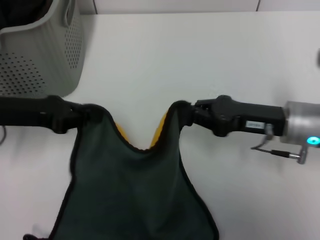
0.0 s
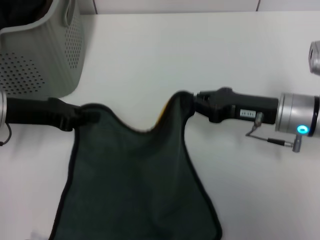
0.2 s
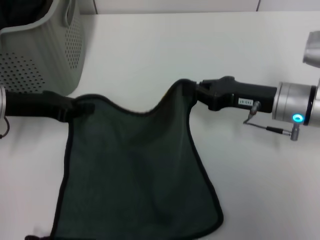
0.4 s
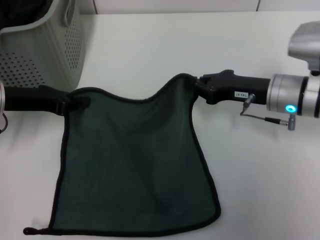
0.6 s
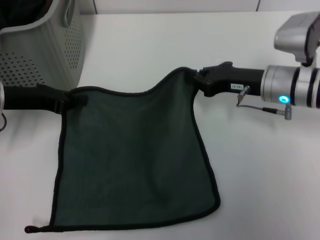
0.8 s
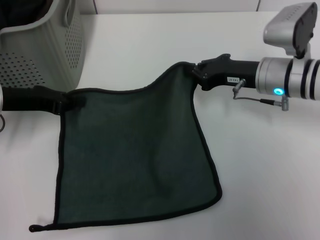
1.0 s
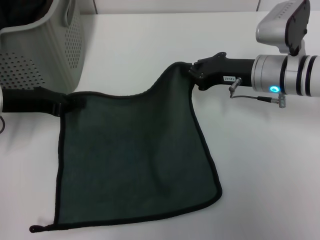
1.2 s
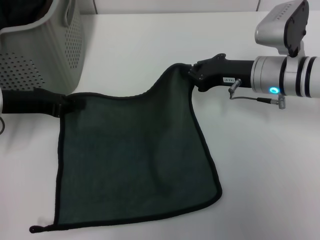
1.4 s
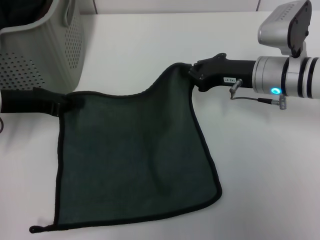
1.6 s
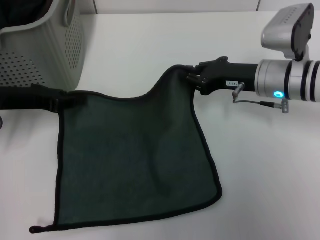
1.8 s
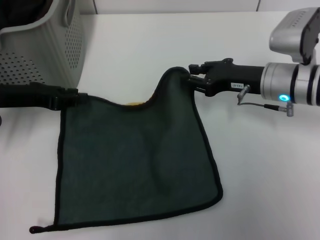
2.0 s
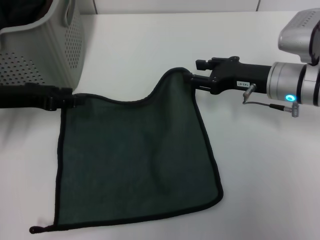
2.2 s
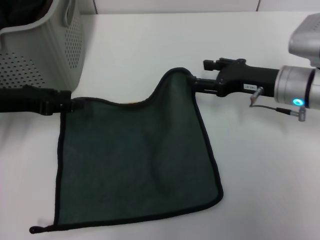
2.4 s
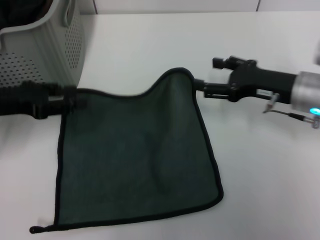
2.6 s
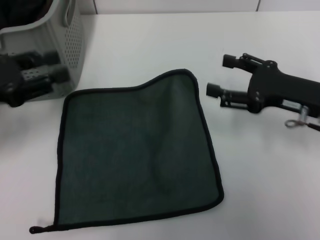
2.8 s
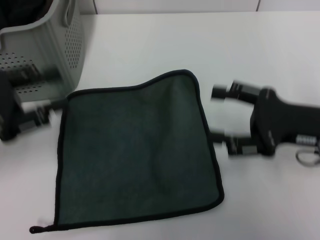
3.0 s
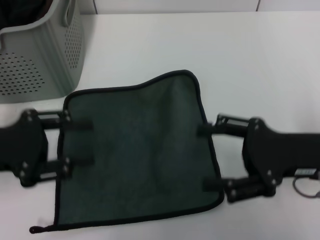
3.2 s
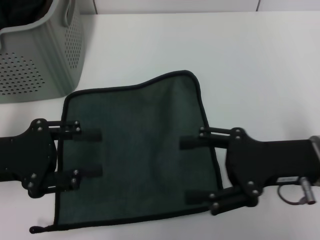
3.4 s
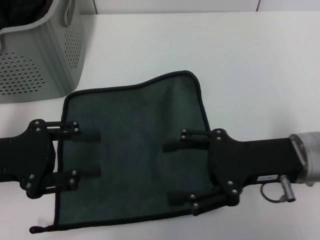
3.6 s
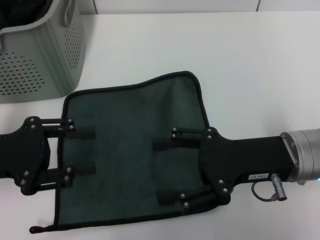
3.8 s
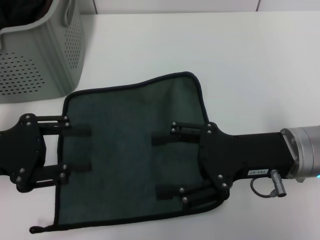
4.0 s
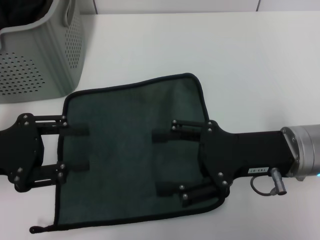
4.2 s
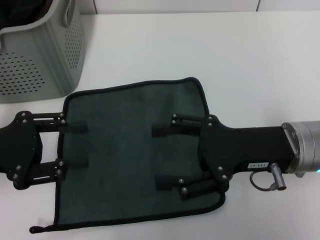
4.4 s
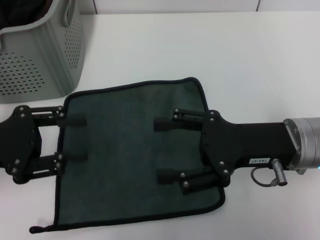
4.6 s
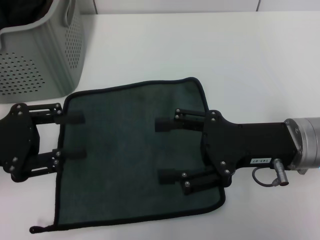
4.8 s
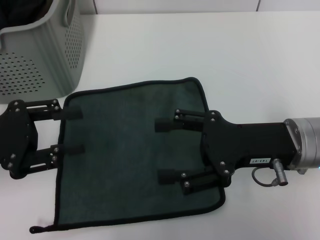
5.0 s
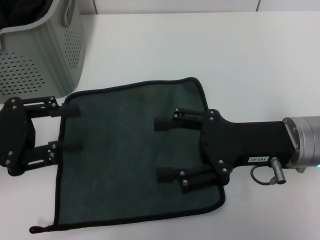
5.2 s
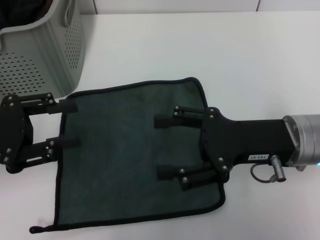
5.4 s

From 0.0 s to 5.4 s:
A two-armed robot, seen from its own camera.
Task of the whole recording: pick up the towel from the storage box and lay it flat on the table.
Step, from 0.0 s to 2.6 s: Spread the towel flat with the right gripper.
From 0.0 s to 1.4 s: The right gripper is displaced forward by about 10 cm.
From 1.4 s to 2.8 s: The right gripper goes some 10 cm backward and to the right, and opens its fingers, while the left gripper is displaced backward by approximately 5 cm, and opens up.
From 2.8 s to 4.0 s: The right gripper shifts roughly 5 cm to the left. The left gripper moves about 5 cm.
From 4.0 s to 5.4 s: The grippers move only a little.

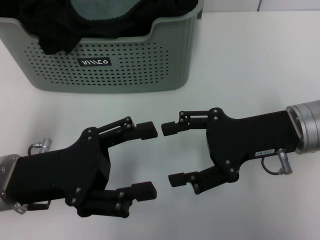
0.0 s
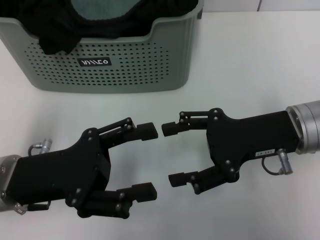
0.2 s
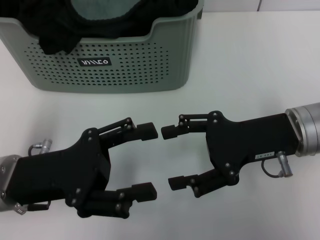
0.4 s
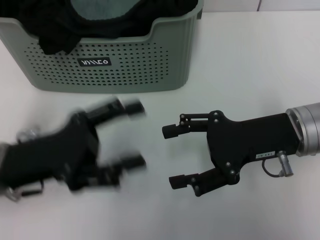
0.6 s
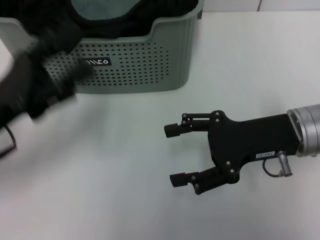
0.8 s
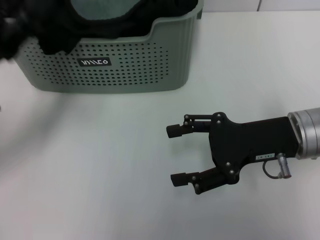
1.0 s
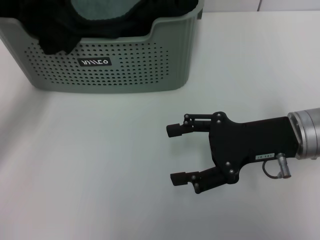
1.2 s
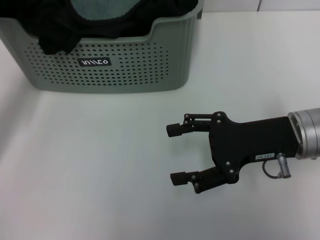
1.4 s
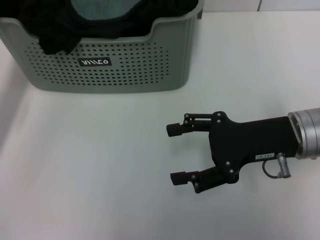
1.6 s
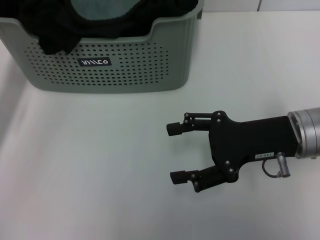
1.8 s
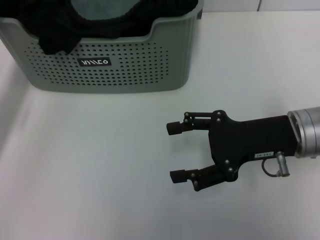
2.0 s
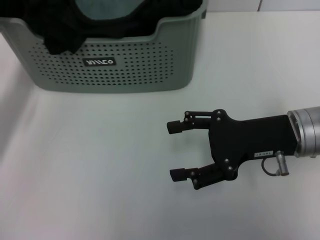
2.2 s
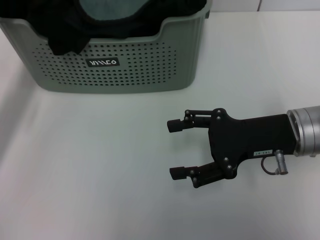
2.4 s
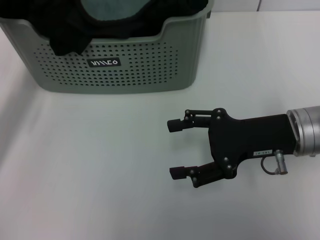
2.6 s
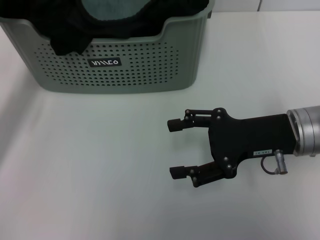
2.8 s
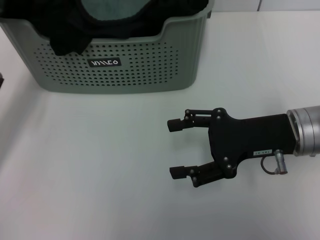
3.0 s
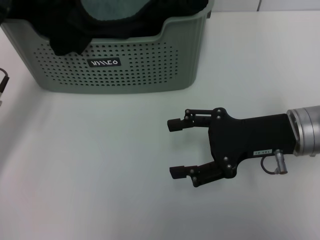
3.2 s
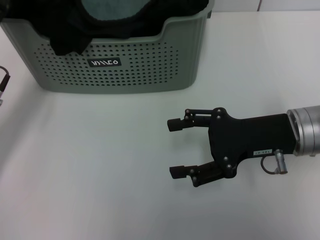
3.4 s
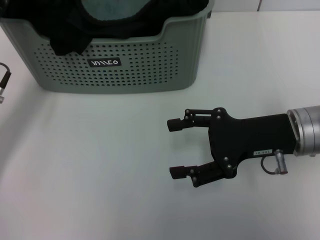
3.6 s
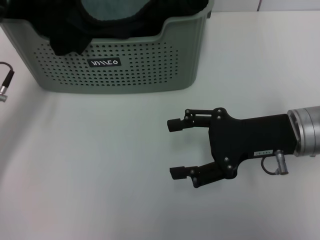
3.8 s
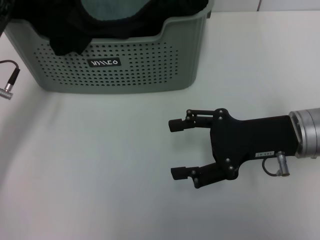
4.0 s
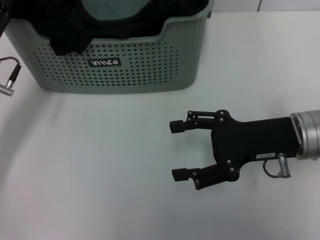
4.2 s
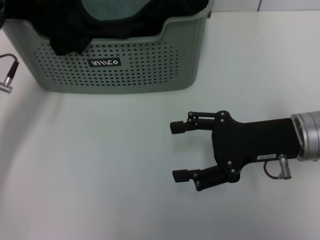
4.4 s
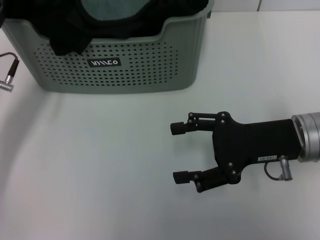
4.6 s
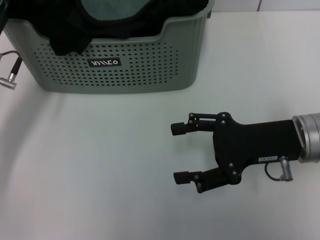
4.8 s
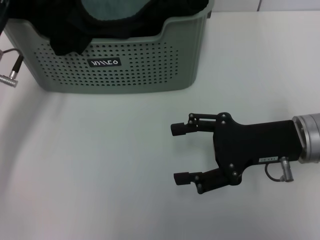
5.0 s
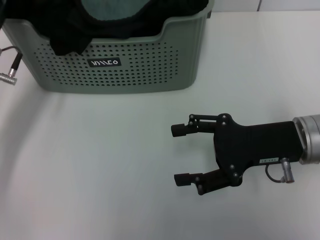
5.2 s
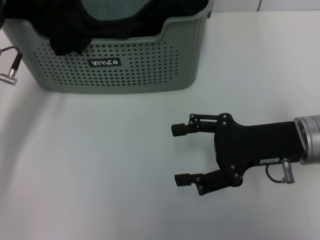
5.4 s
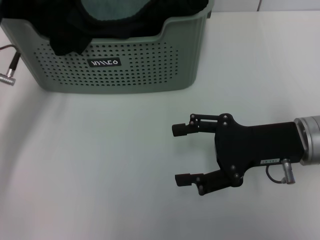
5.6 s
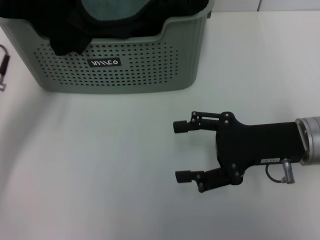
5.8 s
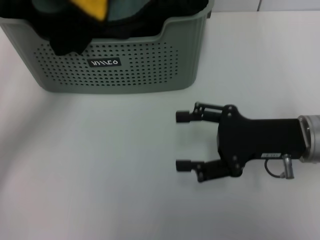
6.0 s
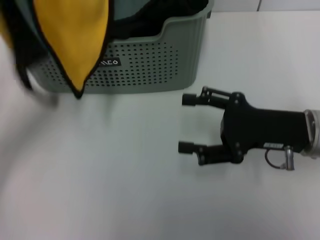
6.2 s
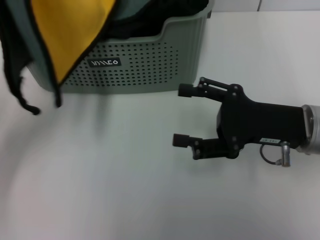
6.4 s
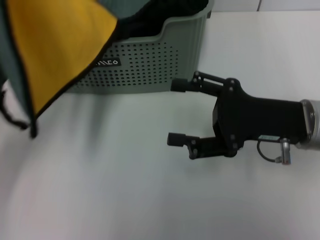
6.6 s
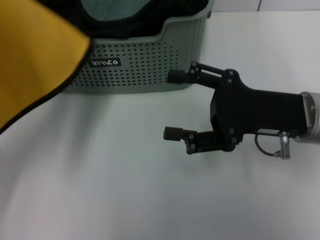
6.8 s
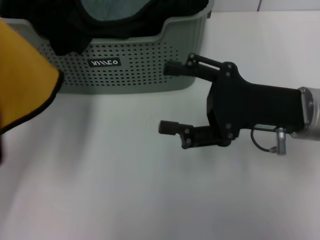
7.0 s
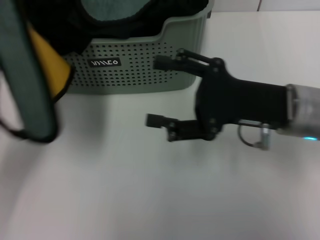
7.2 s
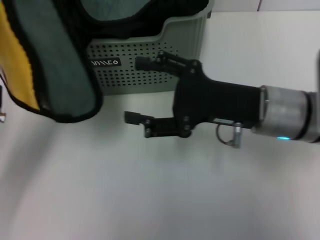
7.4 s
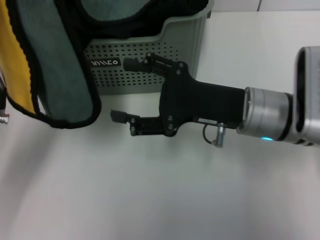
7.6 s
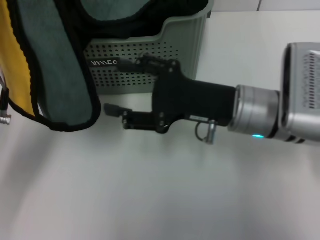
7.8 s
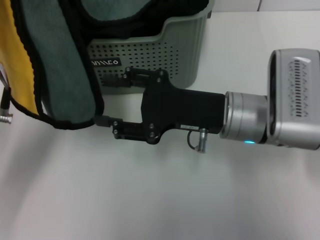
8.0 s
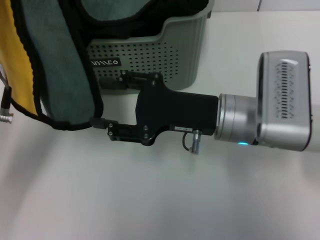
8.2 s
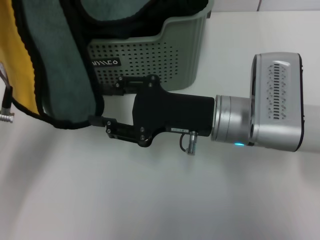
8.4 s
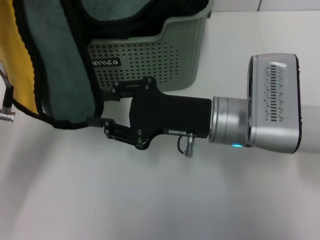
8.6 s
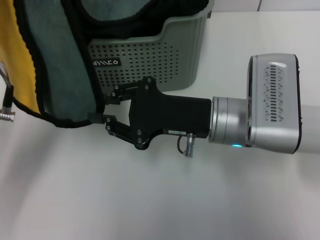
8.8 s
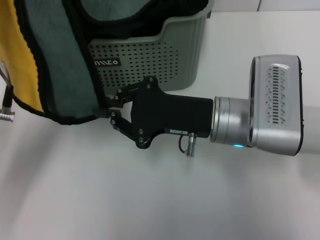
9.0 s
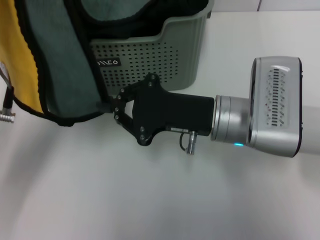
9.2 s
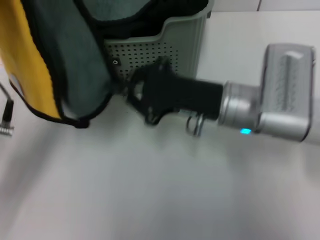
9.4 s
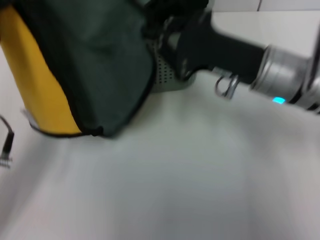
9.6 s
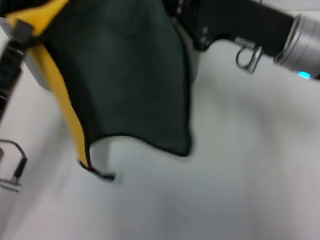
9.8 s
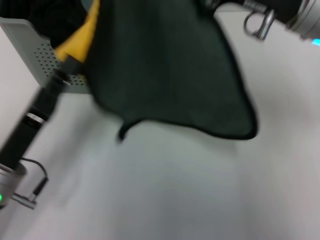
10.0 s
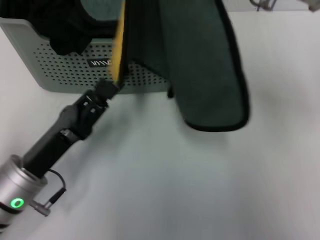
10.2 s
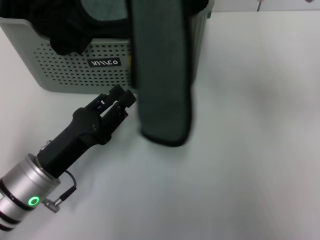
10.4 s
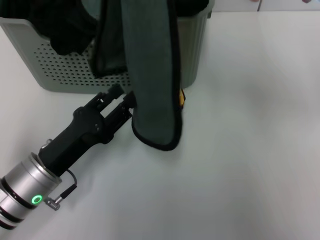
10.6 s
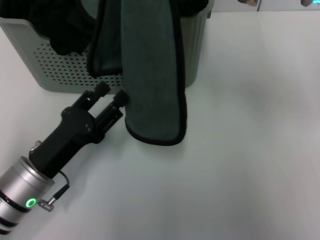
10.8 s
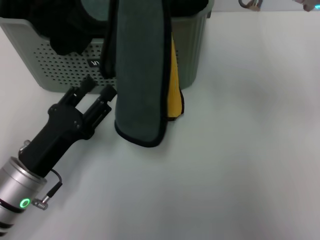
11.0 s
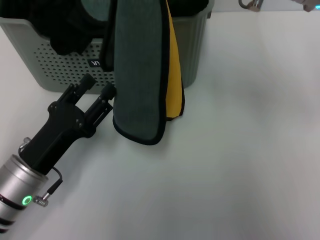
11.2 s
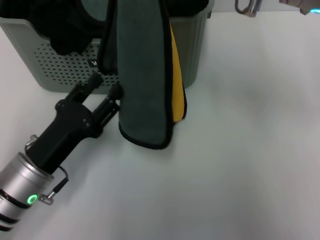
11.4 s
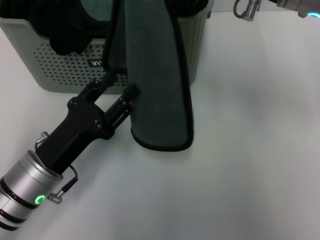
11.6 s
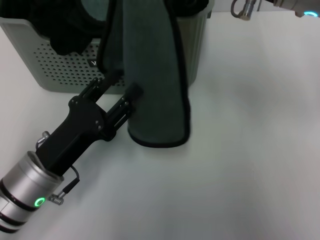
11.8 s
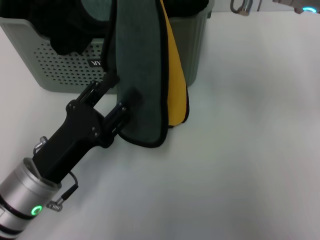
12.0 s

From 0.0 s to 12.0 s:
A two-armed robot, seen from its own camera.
Task of the whole recording: pick up the towel from the storage box and lay it flat on the table.
Step, from 0.0 s to 5.6 s: Pick up a towel with the left gripper.
Step, from 6.0 s to 9.0 s: Spread the towel flat with the left gripper.
From 0.0 s to 1.6 s: The left gripper travels forward and to the left by roughly 15 cm.
From 1.6 s to 3.0 s: The grippers make only small movements.
From 3.0 s to 4.4 s: The grippers make only small movements.
From 4.4 s to 6.0 s: The left gripper moves backward, approximately 5 cm, and closes.
From 6.0 s to 7.6 s: The right gripper moves to the left, roughly 5 cm.
From 7.6 s to 9.0 s: The right gripper closes its fingers.
From 9.0 s to 10.4 s: The right gripper travels upward by about 15 cm, while the left gripper heads downward, covering approximately 10 cm.
From 10.4 s to 12.0 s: The left gripper opens up.

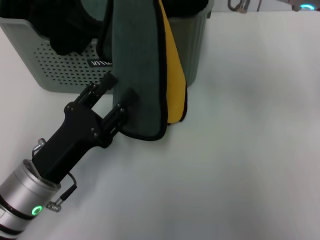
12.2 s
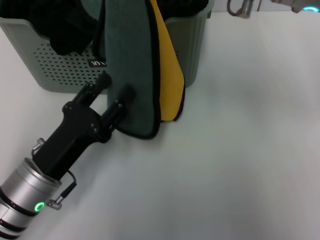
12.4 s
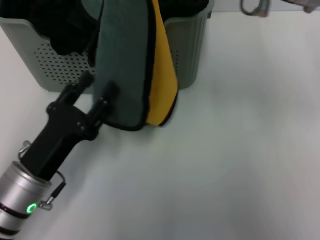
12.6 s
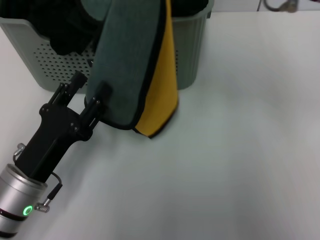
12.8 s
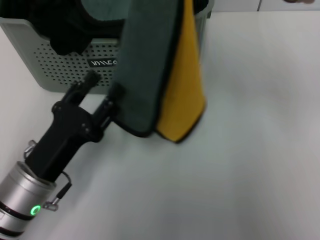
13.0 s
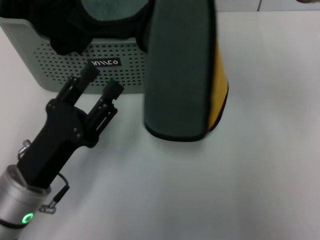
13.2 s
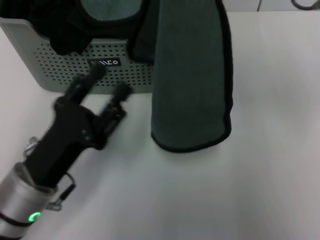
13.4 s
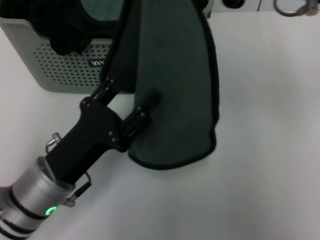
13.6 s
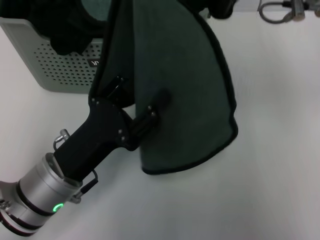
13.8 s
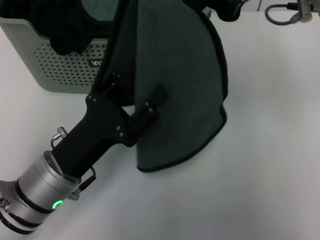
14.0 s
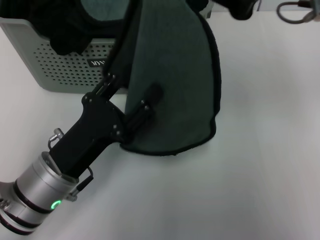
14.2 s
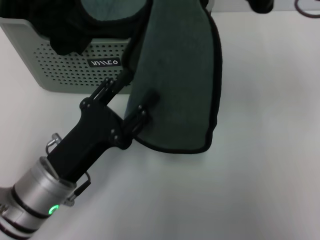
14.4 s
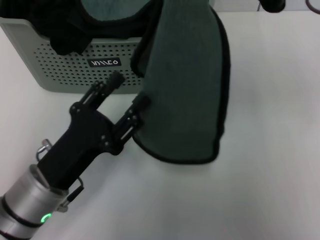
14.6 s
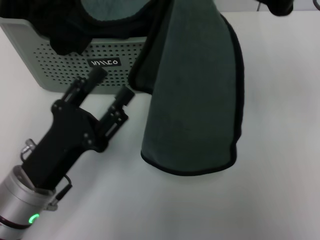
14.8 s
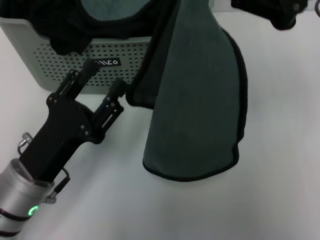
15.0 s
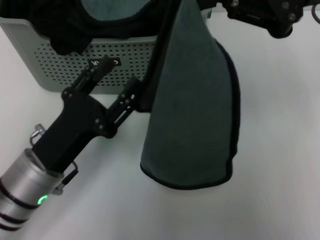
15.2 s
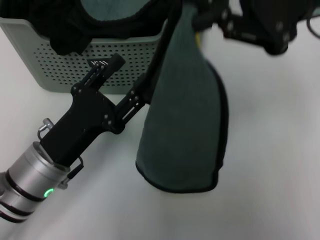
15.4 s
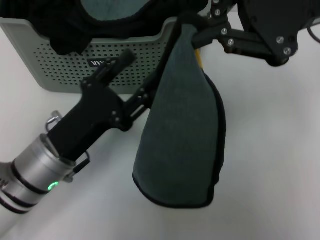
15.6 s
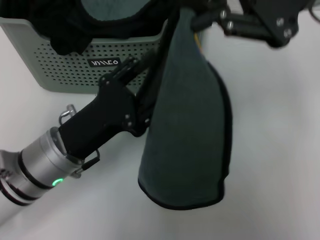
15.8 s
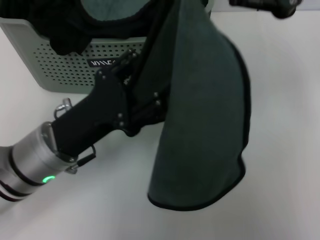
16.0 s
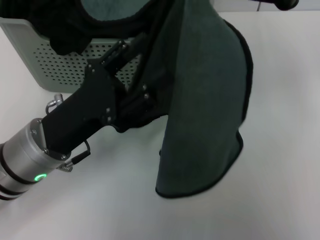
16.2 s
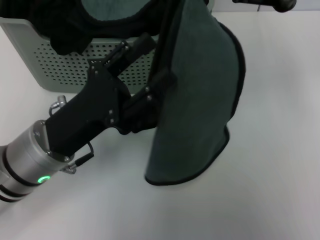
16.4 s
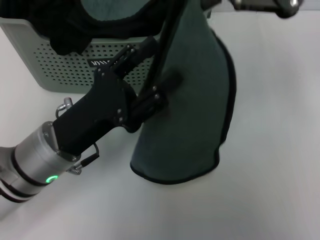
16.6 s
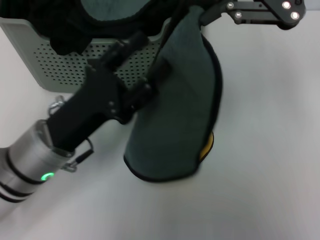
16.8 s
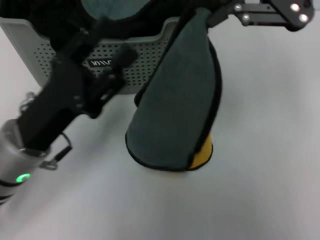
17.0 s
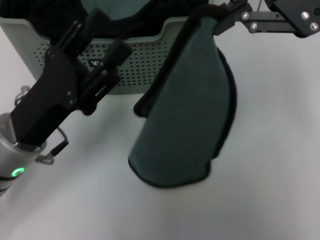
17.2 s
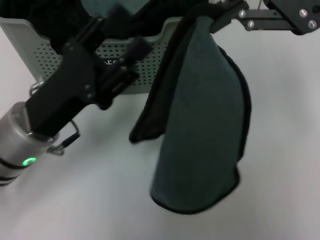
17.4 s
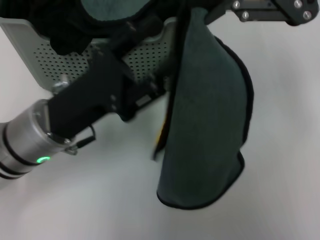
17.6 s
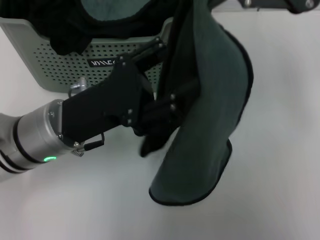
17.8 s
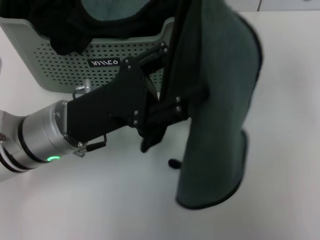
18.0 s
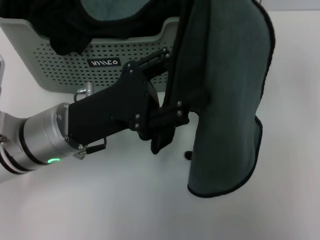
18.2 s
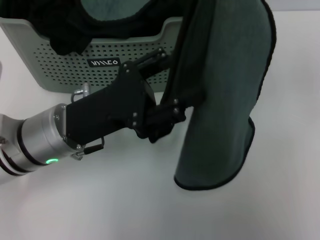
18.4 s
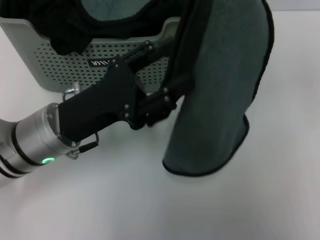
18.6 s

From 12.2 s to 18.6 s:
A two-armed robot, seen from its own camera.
Task of the whole recording: pick up the towel from the storage box and lay it flat on the table.
From 15.4 s to 17.0 s: The right gripper shifts about 5 cm upward.
